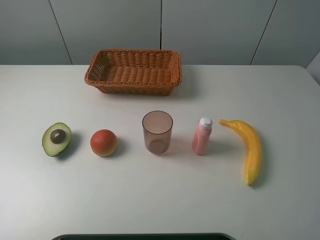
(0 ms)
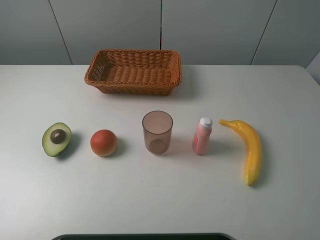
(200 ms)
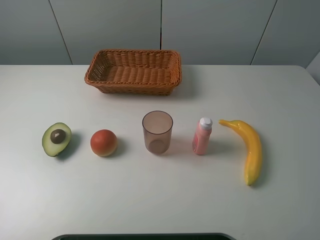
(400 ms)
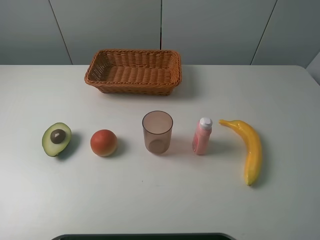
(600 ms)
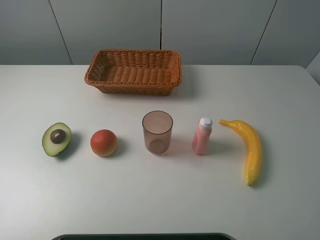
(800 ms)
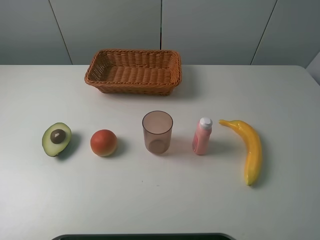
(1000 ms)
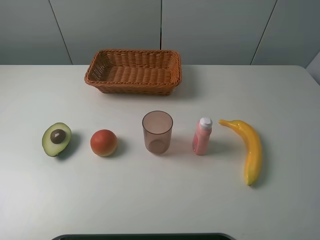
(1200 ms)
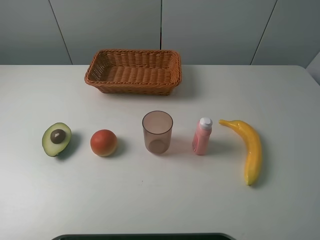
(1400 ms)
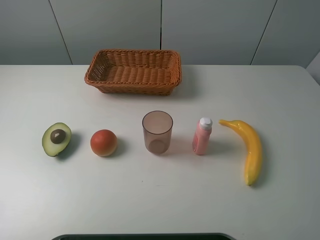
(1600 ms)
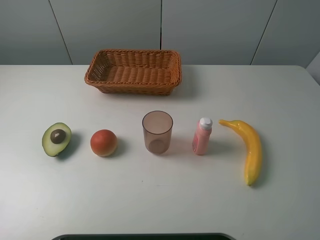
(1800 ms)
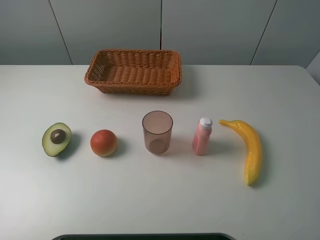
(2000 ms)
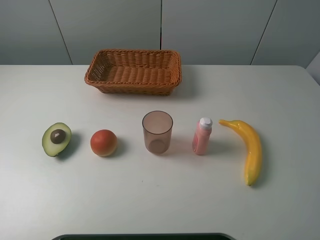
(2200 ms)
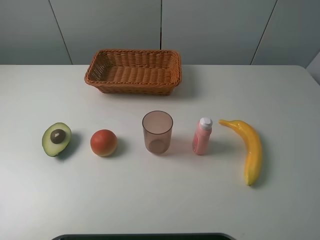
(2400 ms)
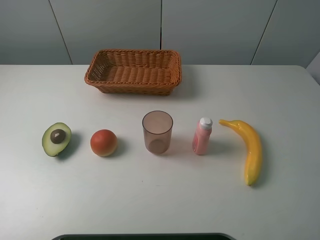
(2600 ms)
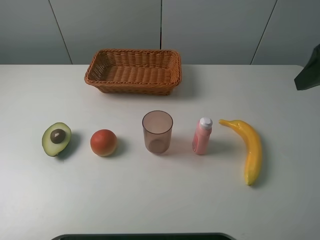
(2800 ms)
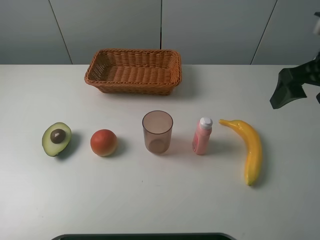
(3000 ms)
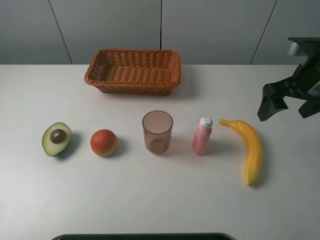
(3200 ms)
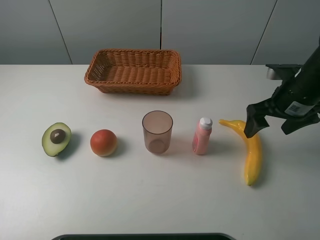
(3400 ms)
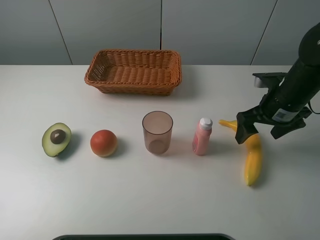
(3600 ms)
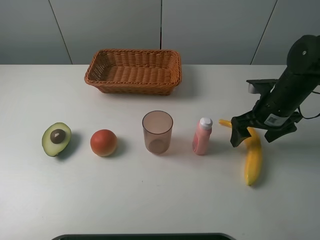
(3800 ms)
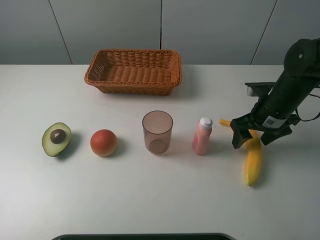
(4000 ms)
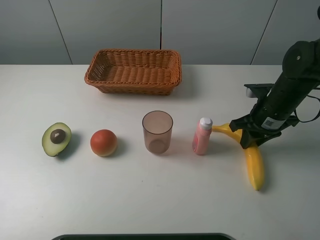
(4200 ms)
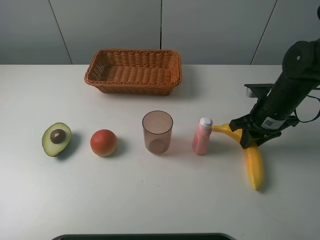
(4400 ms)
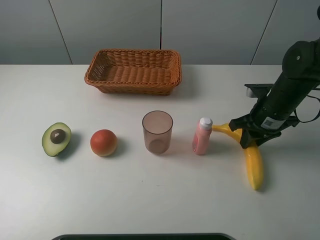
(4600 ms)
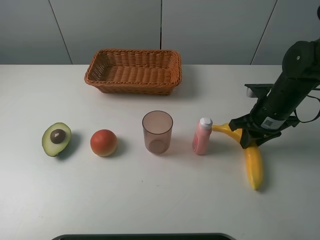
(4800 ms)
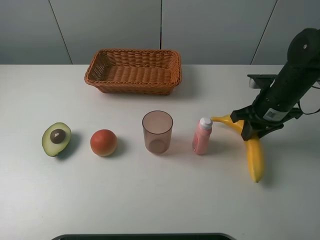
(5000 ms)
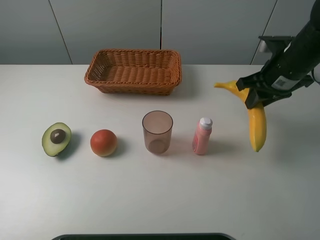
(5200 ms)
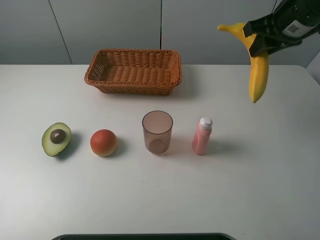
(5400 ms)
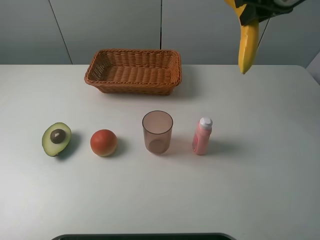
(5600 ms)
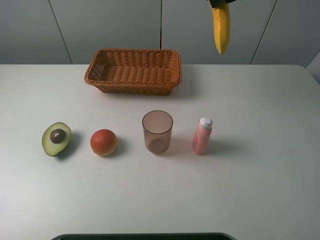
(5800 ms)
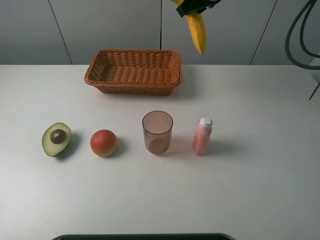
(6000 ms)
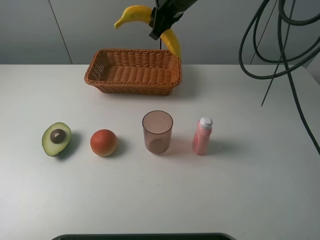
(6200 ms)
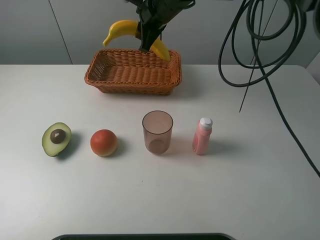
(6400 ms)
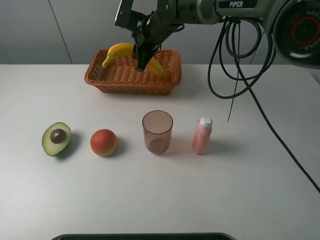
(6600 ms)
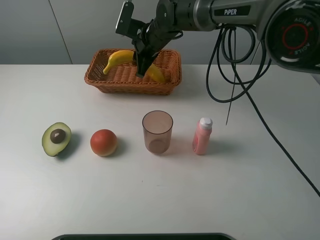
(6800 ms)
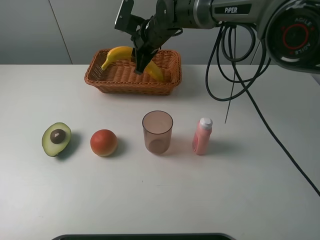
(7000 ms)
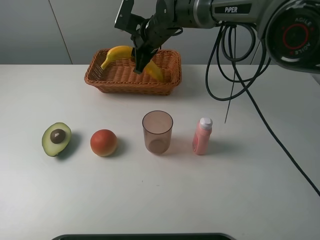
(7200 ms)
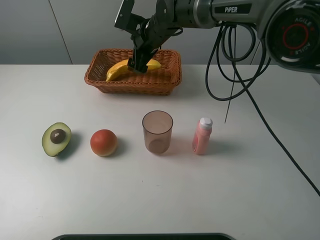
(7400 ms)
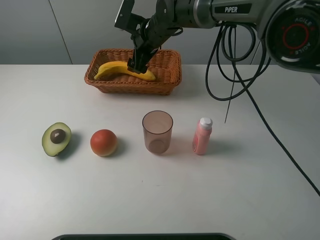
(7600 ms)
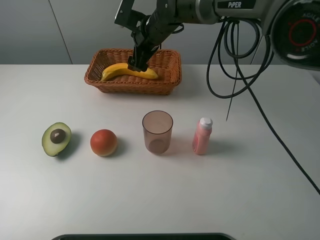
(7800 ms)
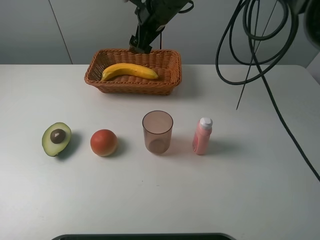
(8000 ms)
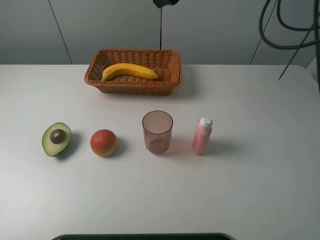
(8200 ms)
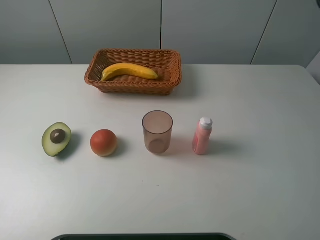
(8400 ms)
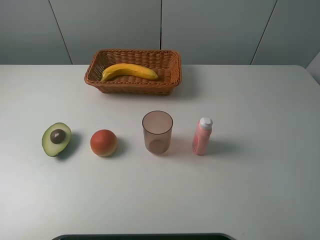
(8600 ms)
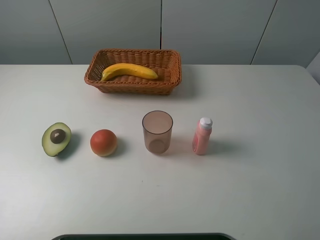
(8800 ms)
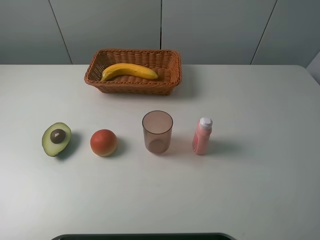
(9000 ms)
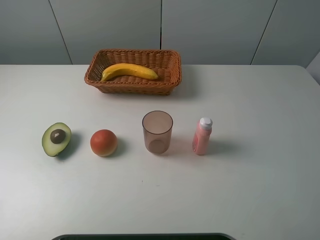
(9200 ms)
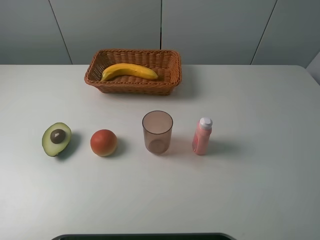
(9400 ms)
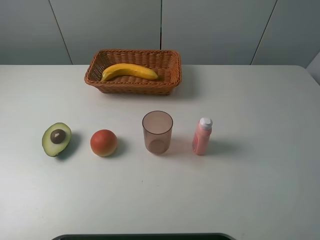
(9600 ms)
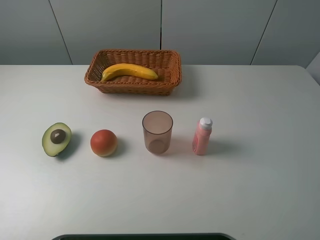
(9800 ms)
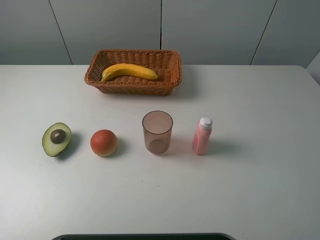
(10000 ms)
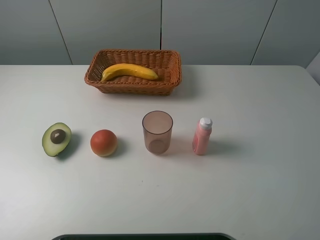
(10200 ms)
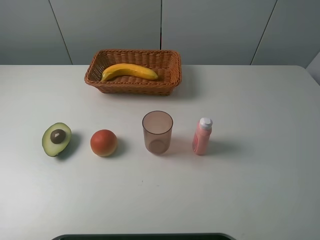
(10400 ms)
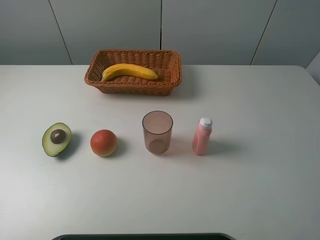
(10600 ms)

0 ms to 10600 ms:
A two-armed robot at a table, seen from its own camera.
Task of the whole recording: randomly pick up an item from the table and put it in the basket.
Step, 0 ms to 4200 ms: Grasp the banana with the right gripper.
Step, 4400 ms to 8000 ms: Place the banana into the basket with the right gripper.
0 ms to 1600 ms: The two grippers keep their place.
1600 ms to 3000 ms: The right gripper moves forward, approximately 25 cm.
3000 ms to 4600 ms: The right gripper heads downward, covering approximately 15 cm, and closes.
4600 ms to 6000 ms: The right gripper moves upward, forward and to the left, some 25 cm.
6000 ms to 7600 ms: The right gripper moves downward and to the left, roughly 15 cm, and opens.
7600 ms to 9000 ms: The right gripper shifts roughly 50 cm to the right, upward and backward.

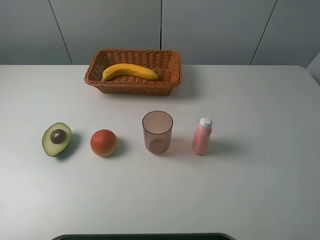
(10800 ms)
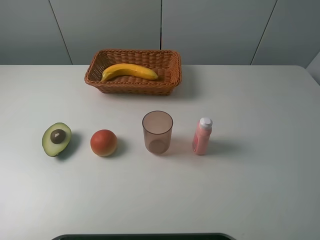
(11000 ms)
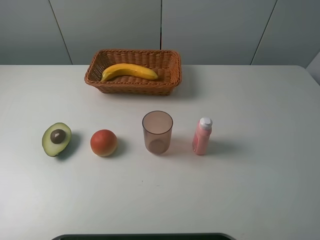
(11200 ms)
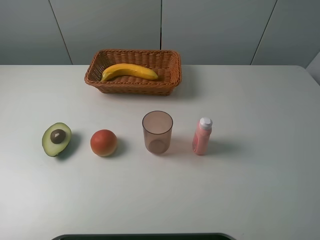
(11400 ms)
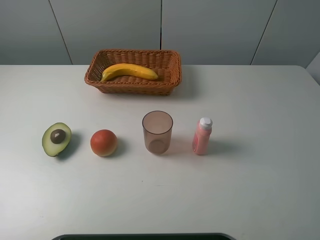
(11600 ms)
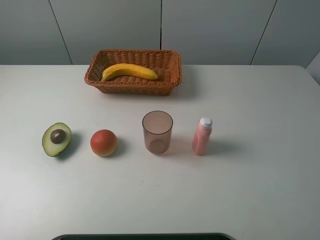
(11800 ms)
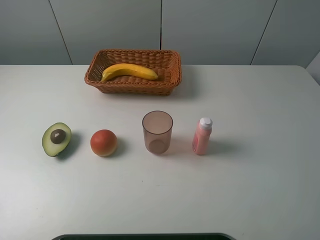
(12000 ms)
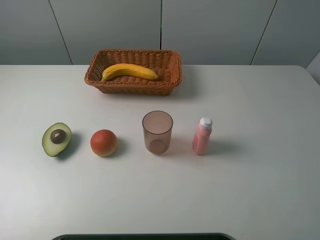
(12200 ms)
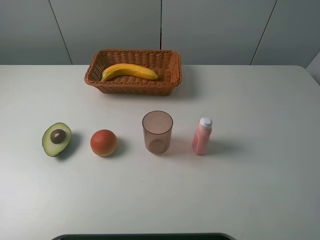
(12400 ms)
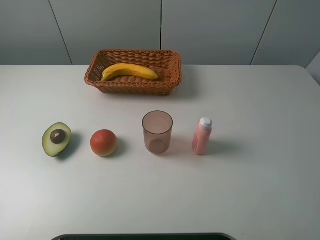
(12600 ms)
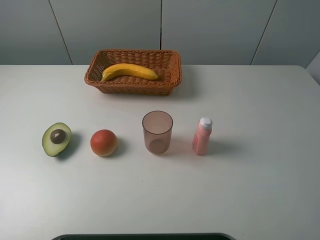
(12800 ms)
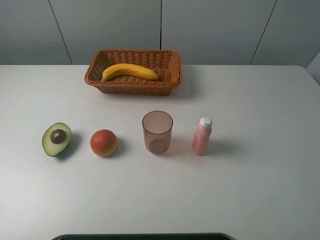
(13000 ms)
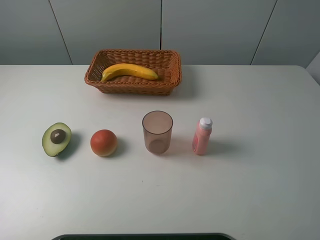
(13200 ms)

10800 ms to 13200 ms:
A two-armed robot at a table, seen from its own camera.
Task of the whole recording: randomly pick up an item from the table and put it in the basket.
10800 ms to 13200 ms: Both grippers stay about where they are.
